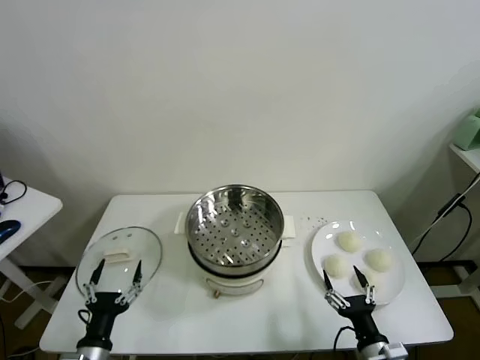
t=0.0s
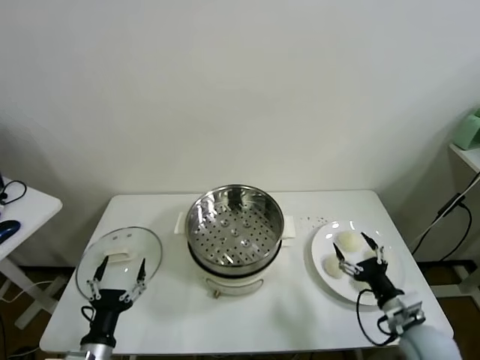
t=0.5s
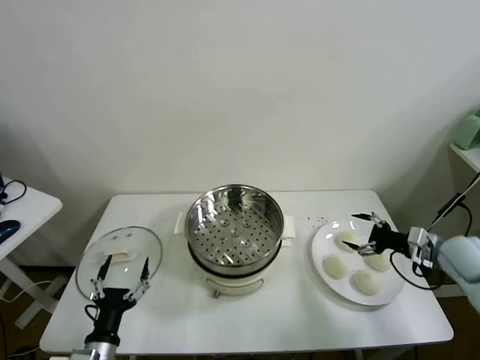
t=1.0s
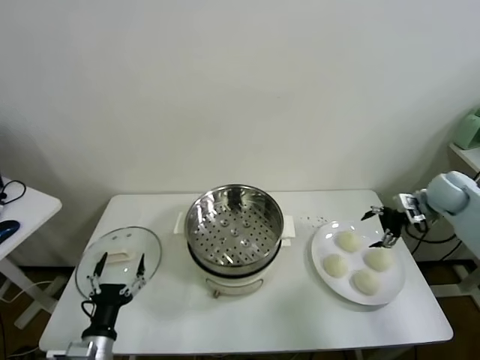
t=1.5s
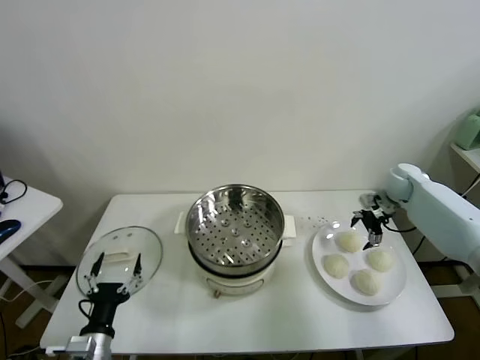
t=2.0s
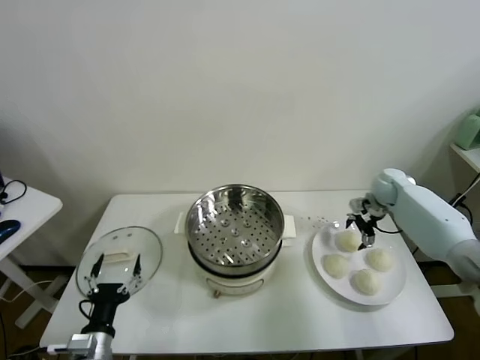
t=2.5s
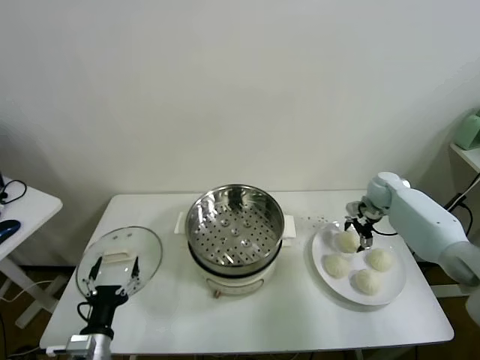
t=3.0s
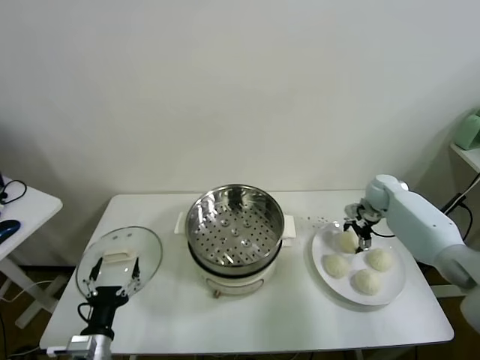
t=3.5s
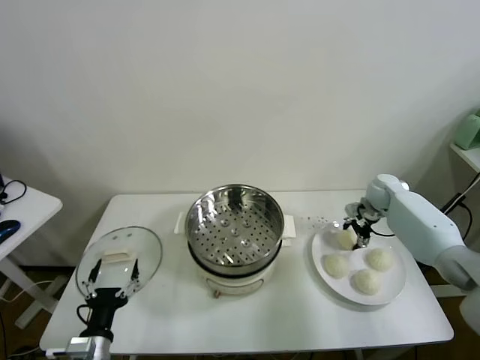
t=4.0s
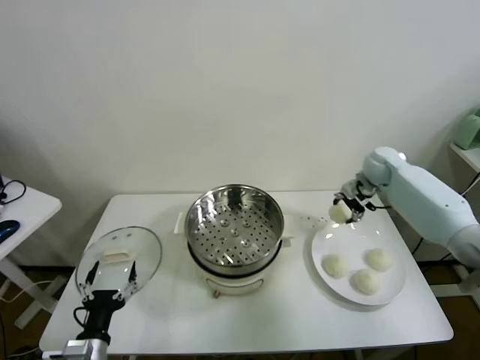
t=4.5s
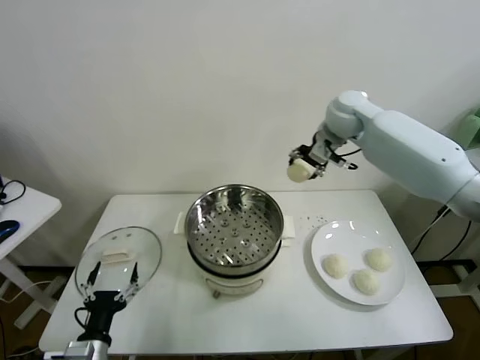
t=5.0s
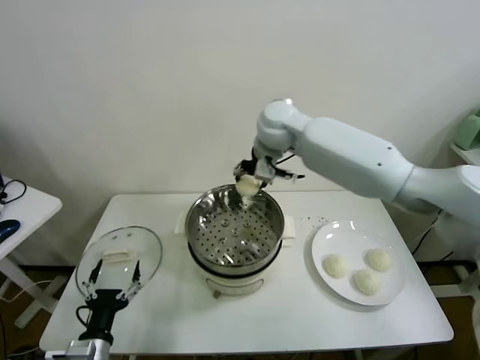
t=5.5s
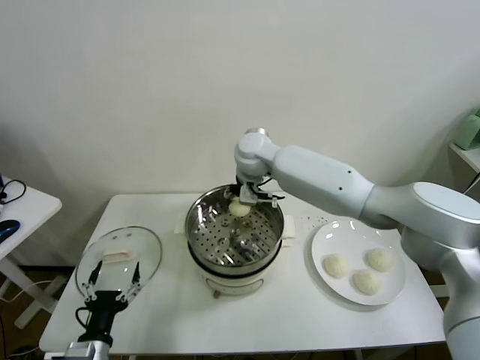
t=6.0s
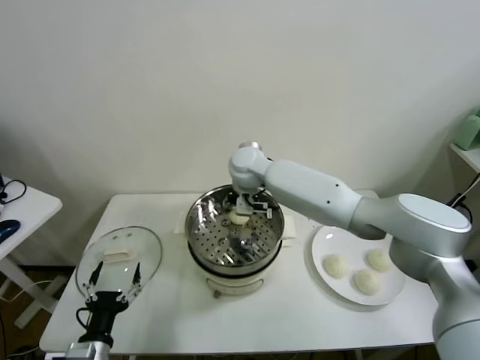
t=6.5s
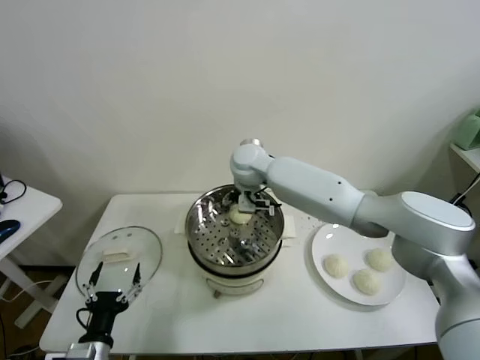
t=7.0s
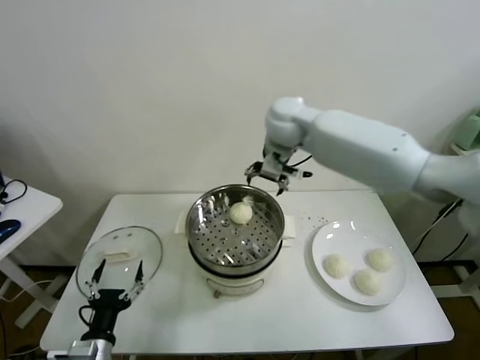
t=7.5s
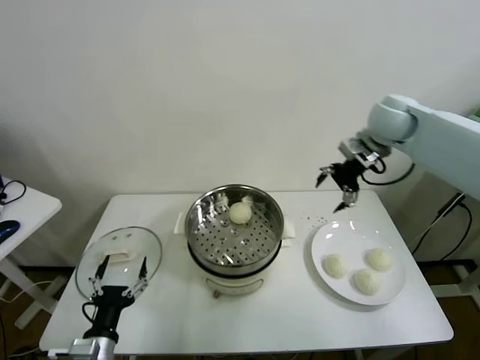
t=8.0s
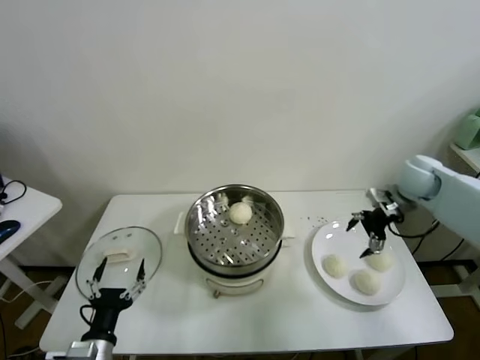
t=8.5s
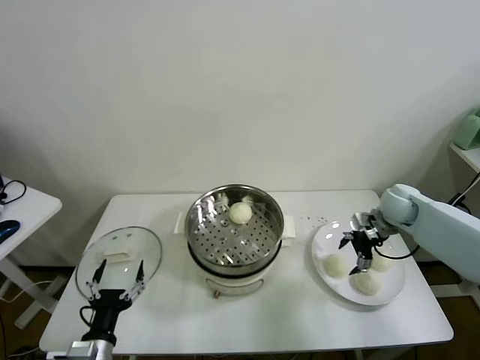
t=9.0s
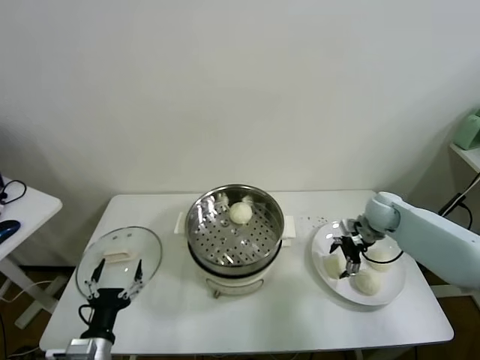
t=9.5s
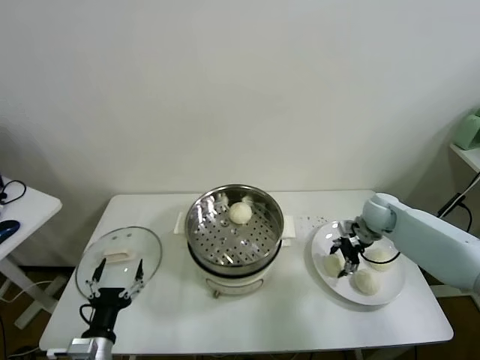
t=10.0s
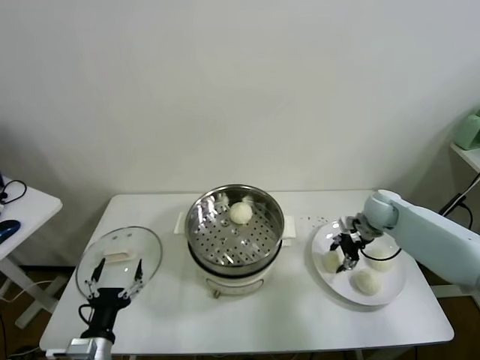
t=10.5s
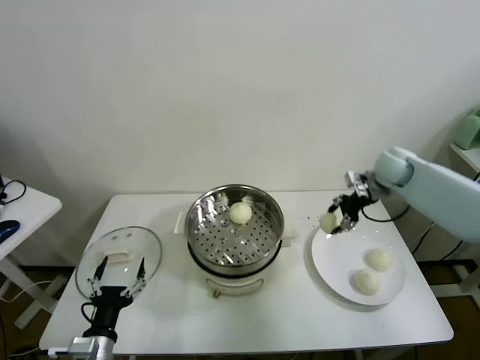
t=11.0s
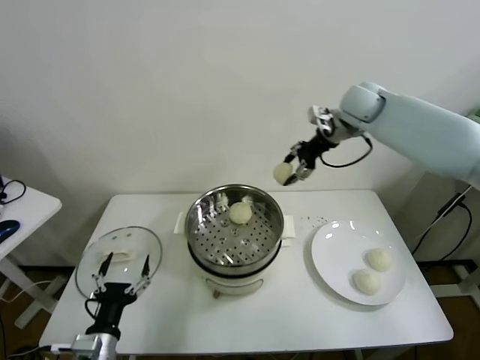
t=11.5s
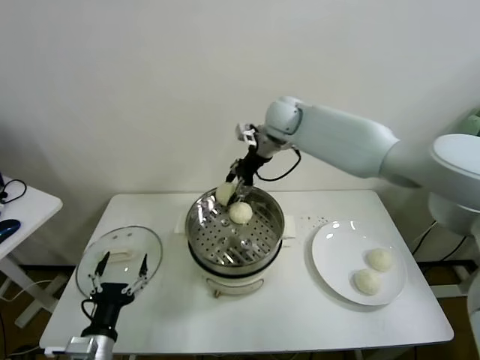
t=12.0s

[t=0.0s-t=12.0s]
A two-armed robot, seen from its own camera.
Task of the whole recording: take steamed baozi put them in steamer.
Step, t=0.0s to t=4.0s: Grasp the baozi in the plate with right gripper.
Step, t=4.5s to t=7.0s: Place the baozi on the steamer with right gripper.
Step, t=7.5s to t=10.0s: Grasp the baozi in the plate with right gripper.
t=2.0s to t=4.0s: The right gripper changes place by some 5 cm, and closes its fingers.
t=4.0s to t=6.0s: The right gripper moves to the left and upward, about 40 cm.
t=6.0s to t=8.0s: The right gripper goes about 30 cm to the right, and opens its fingers.
t=8.0s to t=10.0s: The right gripper moves downward, roughly 25 cm, and closes.
t=10.0s to t=12.0s: The right gripper is displaced to the left and upward by about 35 cm.

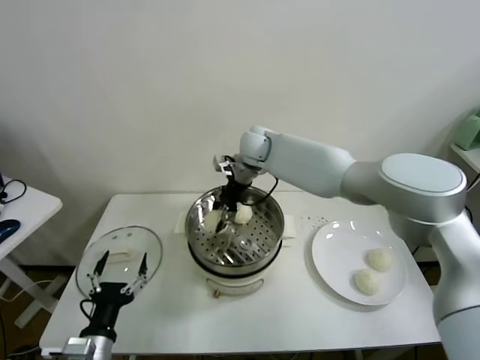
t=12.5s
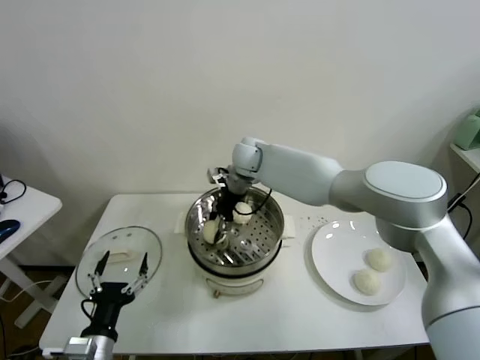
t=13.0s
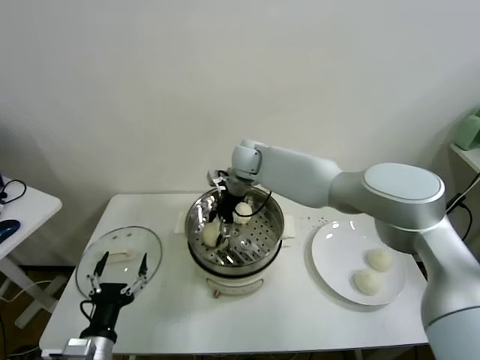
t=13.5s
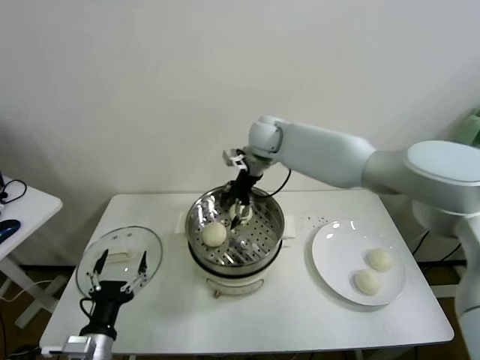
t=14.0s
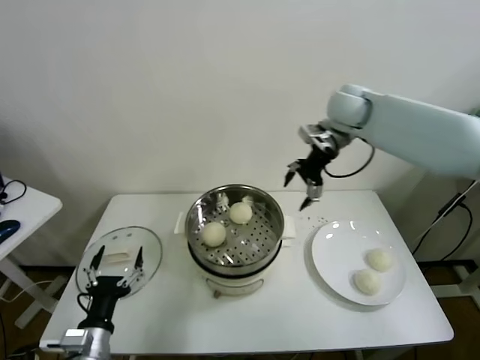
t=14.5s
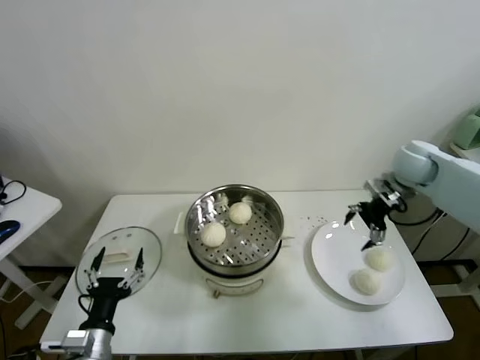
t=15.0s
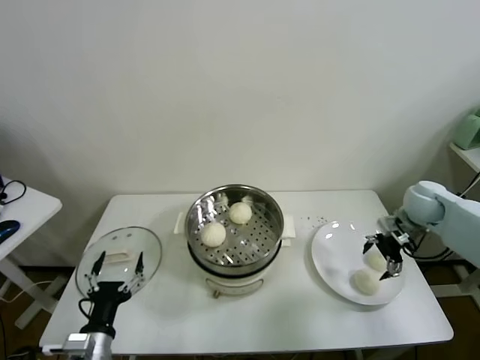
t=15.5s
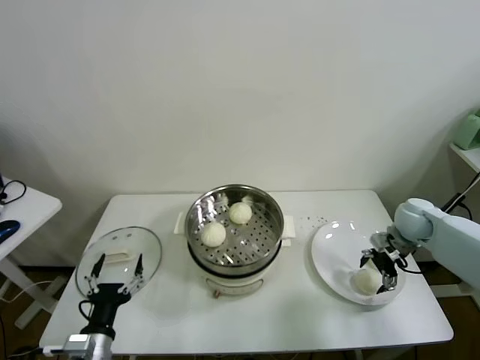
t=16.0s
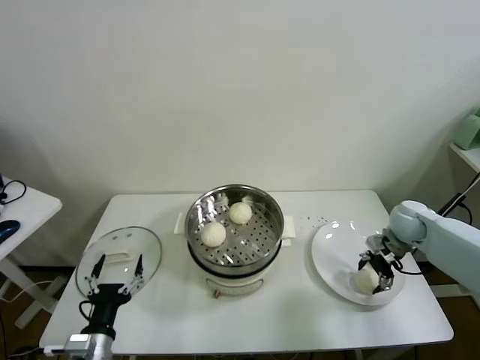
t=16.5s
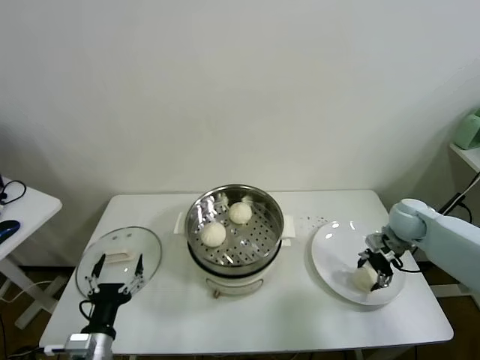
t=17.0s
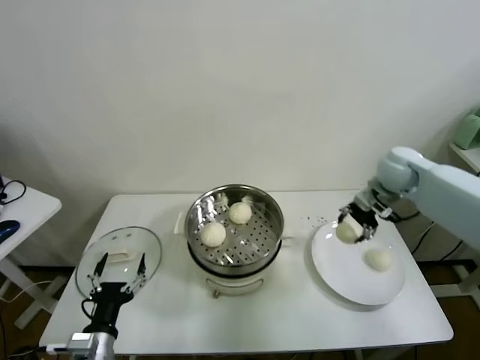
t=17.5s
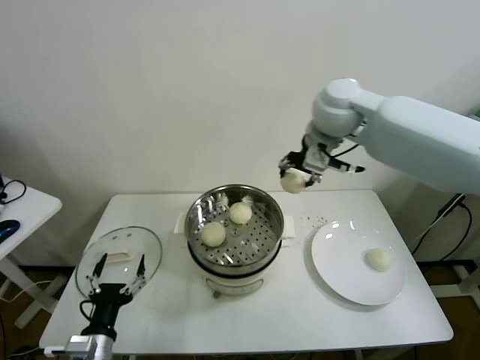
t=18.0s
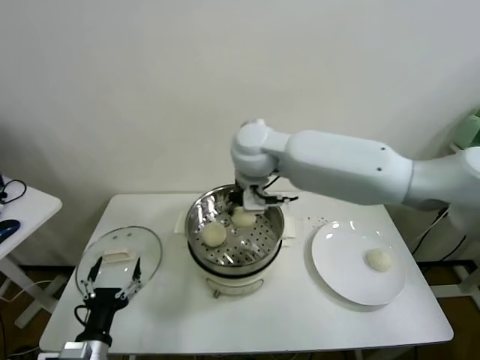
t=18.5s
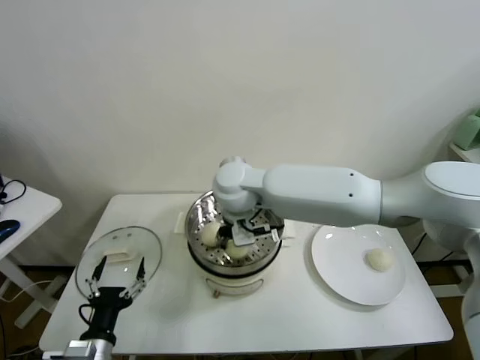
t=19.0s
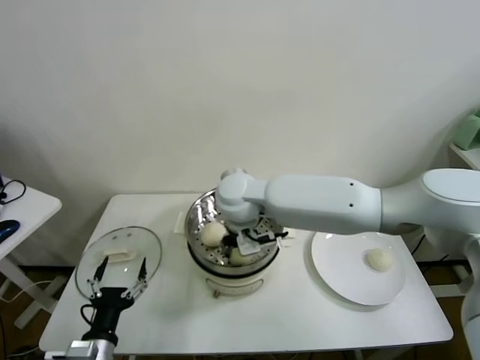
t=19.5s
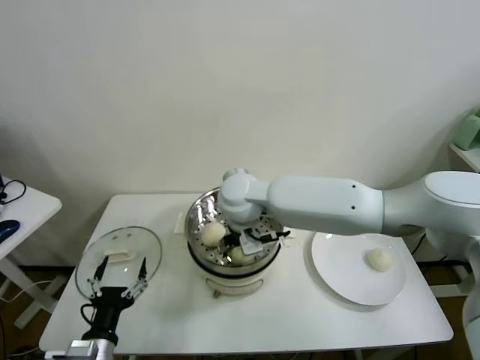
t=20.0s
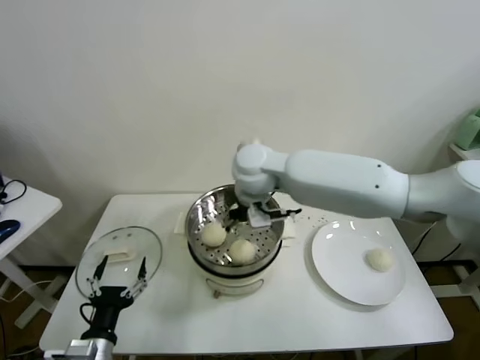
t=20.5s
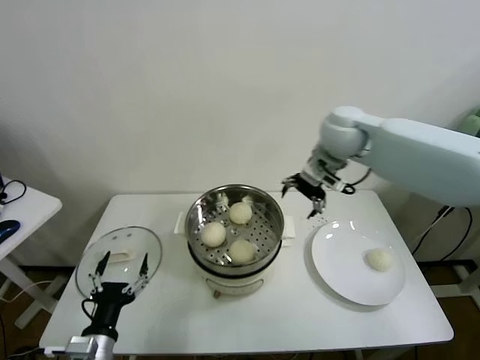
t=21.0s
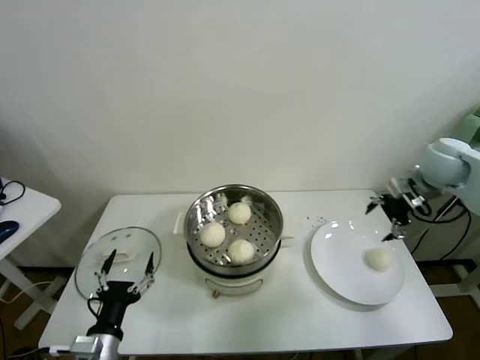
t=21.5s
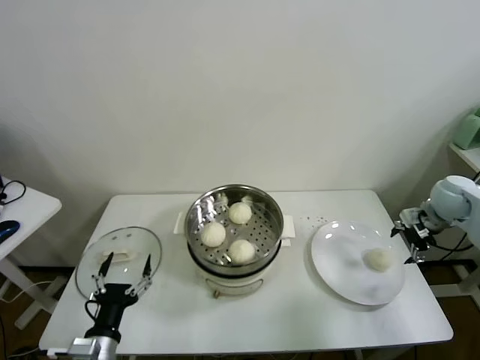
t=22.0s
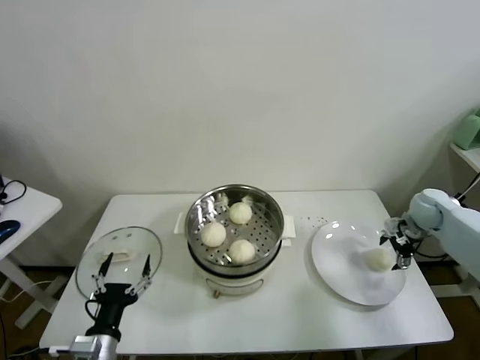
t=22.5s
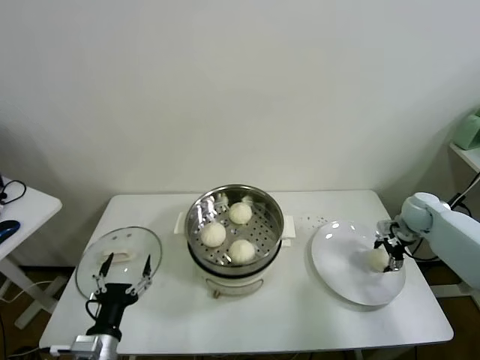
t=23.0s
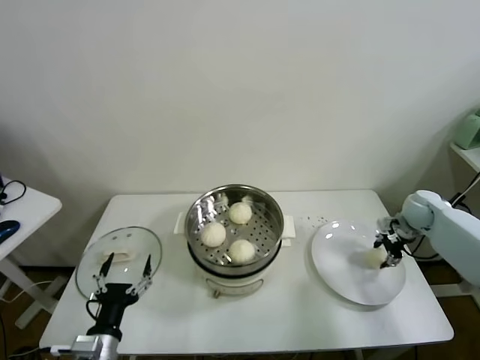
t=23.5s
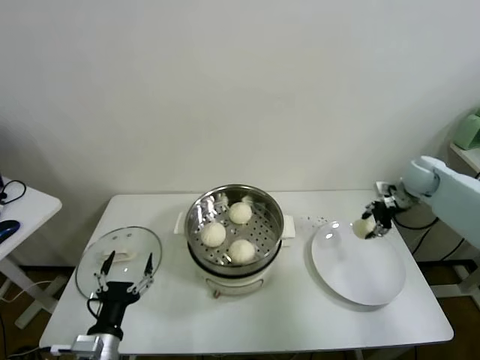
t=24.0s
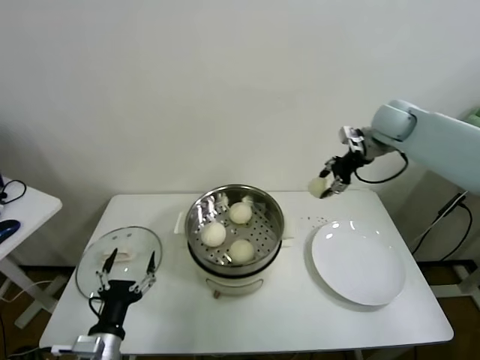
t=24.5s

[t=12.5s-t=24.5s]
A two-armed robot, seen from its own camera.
Task of the whole recording: take steamed baozi put them in steamer.
Step, t=14.0s to t=16.5s: Grasp the baozi in the plate with right gripper.
Step, t=17.0s to t=20.0s: Place the baozi on the steamer with right gripper.
Step, t=20.5s to t=23.0s: Grasp the baozi in the plate with right gripper.
t=12.5s to t=14.5s: The right gripper goes roughly 20 cm to the right and upward, and opens its fingers.
t=14.5s to t=16.5s: The right gripper heads downward, to the right and backward, covering approximately 35 cm.
t=16.5s to t=18.5s: The right gripper heads to the left and upward, covering some 50 cm, and closes its fingers.
t=18.5s to t=20.5s: The right gripper opens up.
t=20.5s to t=22.5s: The right gripper goes approximately 50 cm to the right.
t=22.5s to t=24.5s: The right gripper travels upward, to the left and forward by some 25 cm, and closes its fingers.

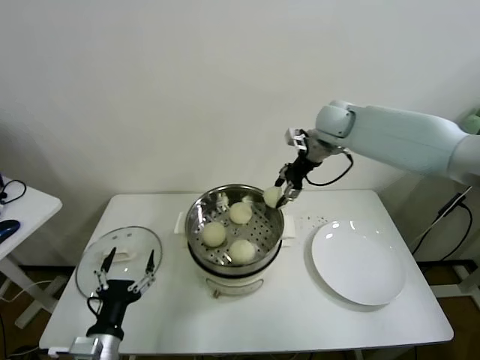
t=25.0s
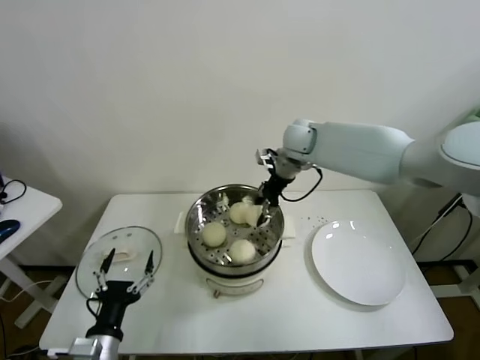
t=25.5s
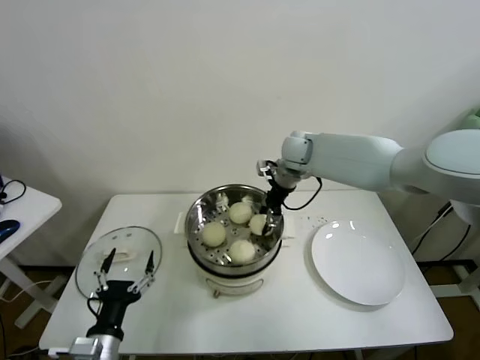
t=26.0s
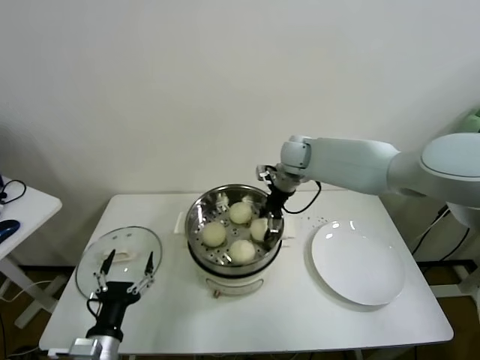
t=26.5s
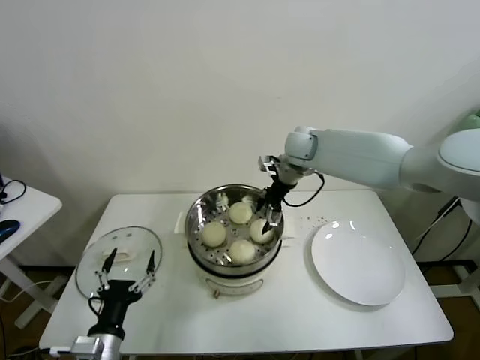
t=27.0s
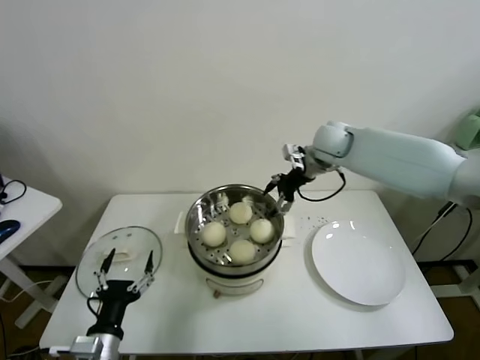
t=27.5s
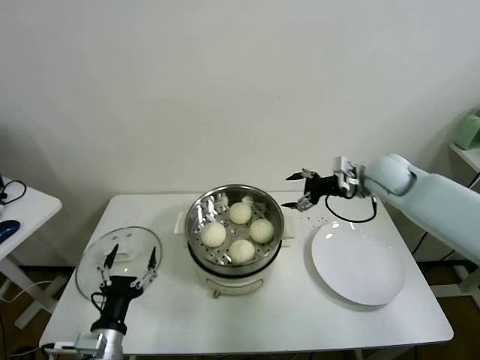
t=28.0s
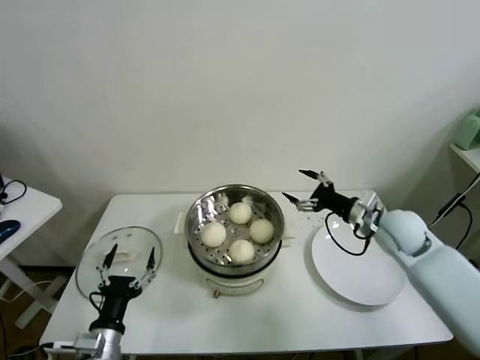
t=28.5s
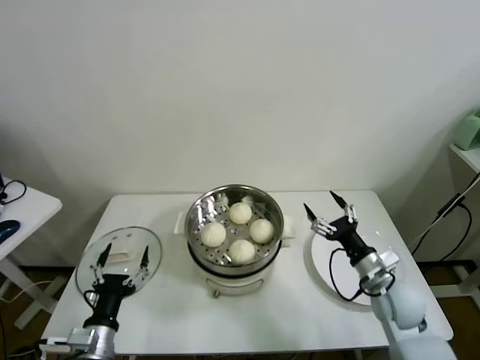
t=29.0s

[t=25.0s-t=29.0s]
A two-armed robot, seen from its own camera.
Task of the whole recording: take steamed baozi put them in steamer.
t=25.0s to t=27.0s: The right gripper is displaced to the left and downward by approximately 10 cm, and opens up.
t=27.0s to t=29.0s: The right gripper is displaced backward, downward and to the right by about 40 cm.
